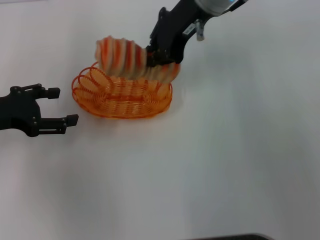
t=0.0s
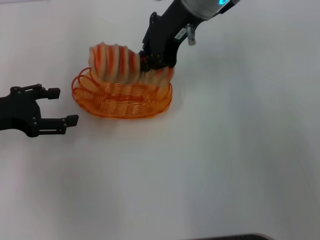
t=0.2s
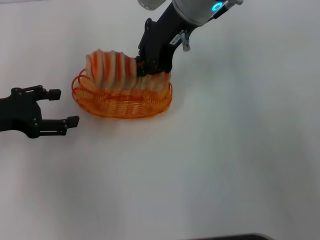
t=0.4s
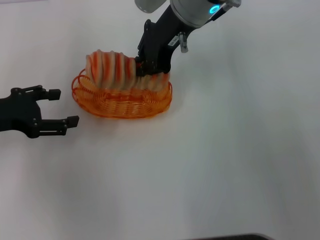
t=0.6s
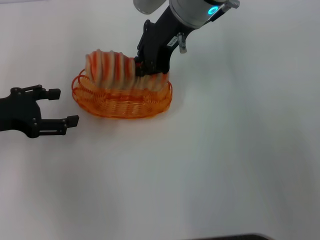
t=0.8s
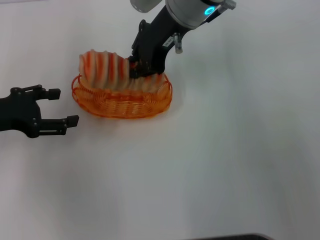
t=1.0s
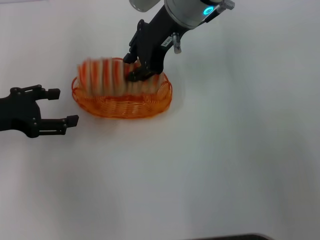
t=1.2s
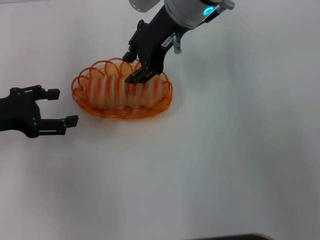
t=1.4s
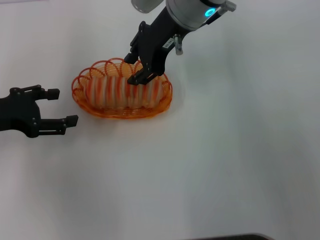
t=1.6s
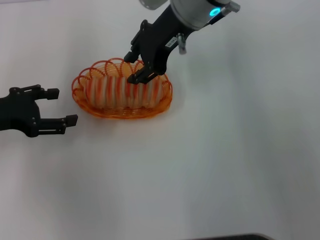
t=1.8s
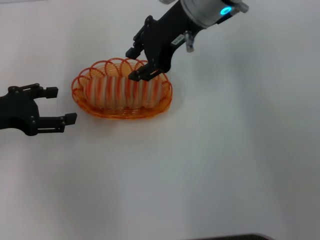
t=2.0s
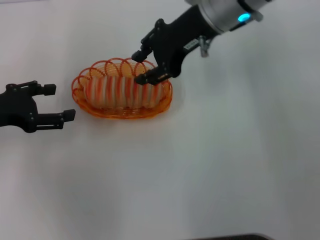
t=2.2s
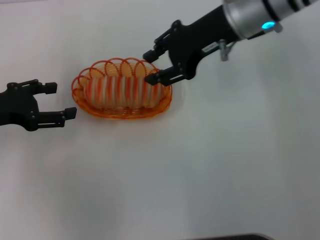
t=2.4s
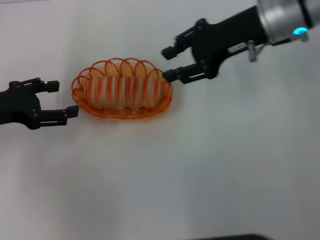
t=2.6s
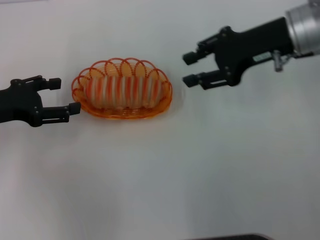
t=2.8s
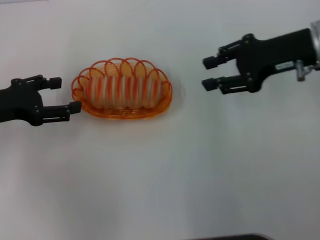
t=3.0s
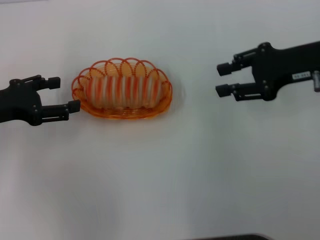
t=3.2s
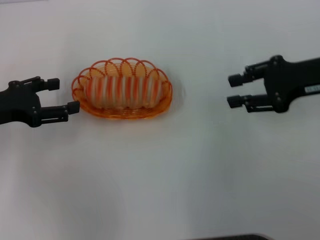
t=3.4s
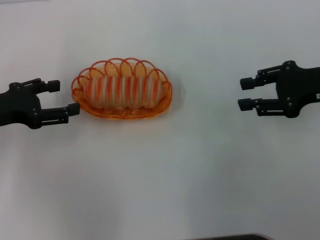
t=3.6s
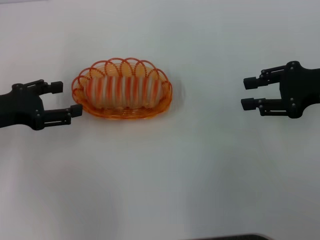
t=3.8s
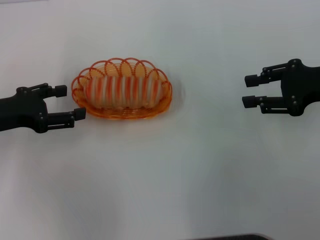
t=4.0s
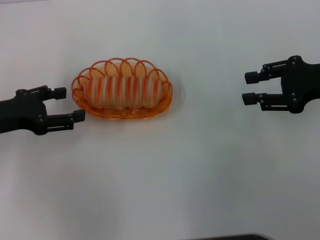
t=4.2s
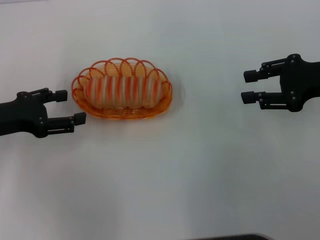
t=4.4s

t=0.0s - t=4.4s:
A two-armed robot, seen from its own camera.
t=0.0s - t=1.4s: The right gripper opens its fingers.
t=1.4s - t=3.0s: The right gripper heads to the right, covering roughly 20 cm.
t=3.0s - t=4.4s: The right gripper heads to the right, covering roughly 5 cm.

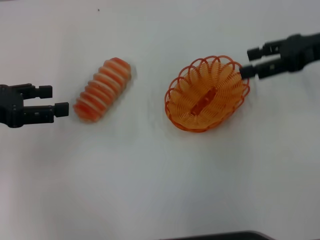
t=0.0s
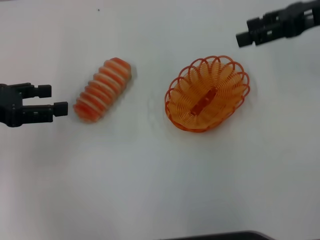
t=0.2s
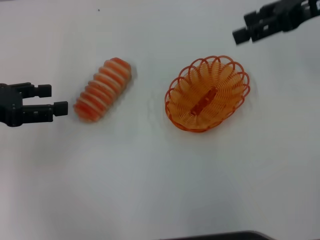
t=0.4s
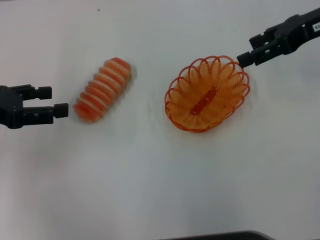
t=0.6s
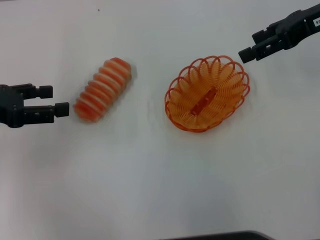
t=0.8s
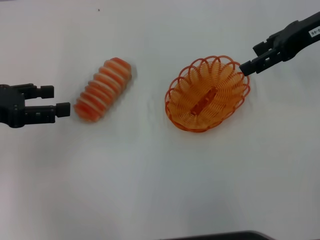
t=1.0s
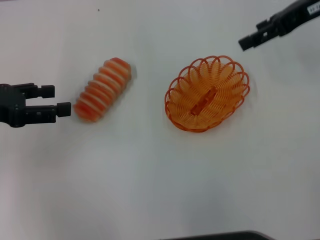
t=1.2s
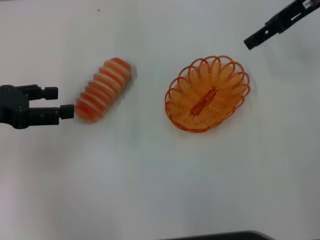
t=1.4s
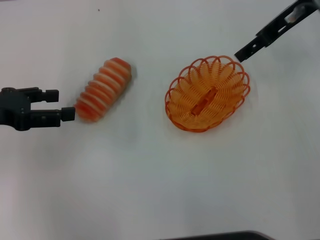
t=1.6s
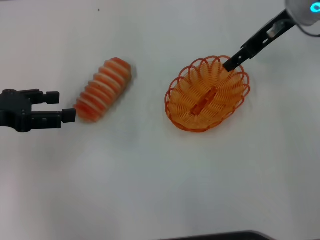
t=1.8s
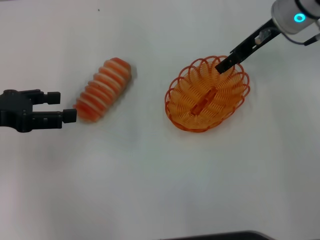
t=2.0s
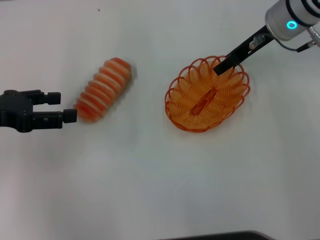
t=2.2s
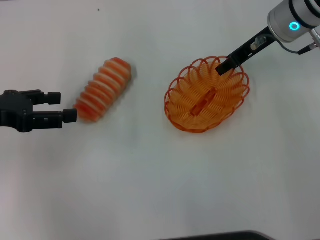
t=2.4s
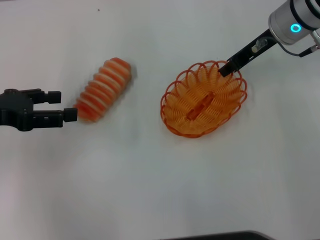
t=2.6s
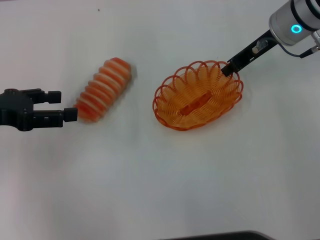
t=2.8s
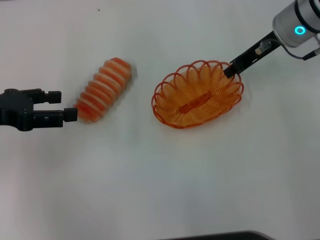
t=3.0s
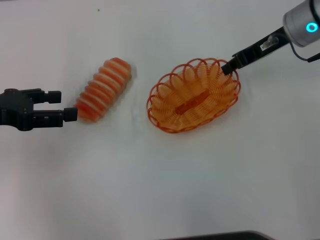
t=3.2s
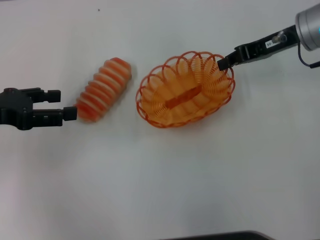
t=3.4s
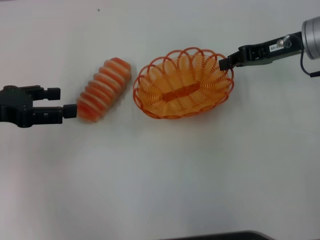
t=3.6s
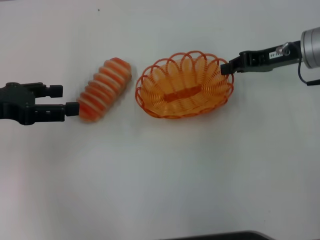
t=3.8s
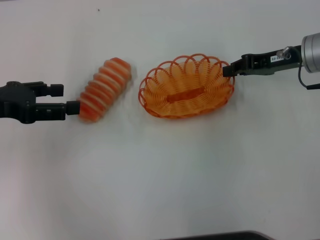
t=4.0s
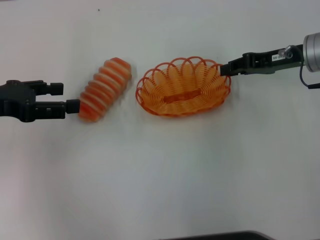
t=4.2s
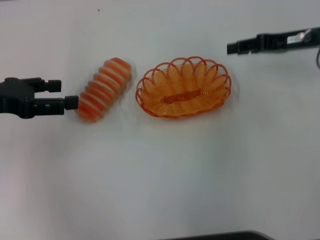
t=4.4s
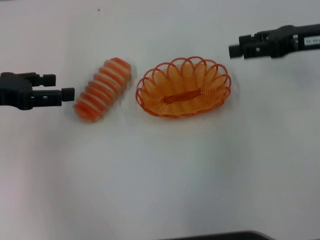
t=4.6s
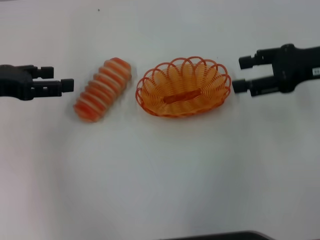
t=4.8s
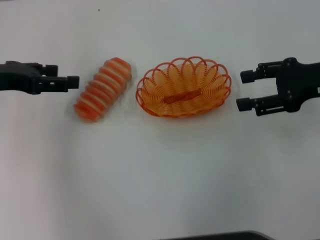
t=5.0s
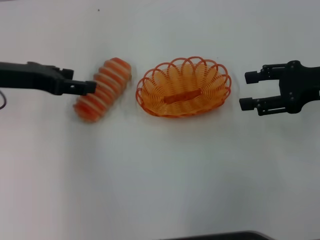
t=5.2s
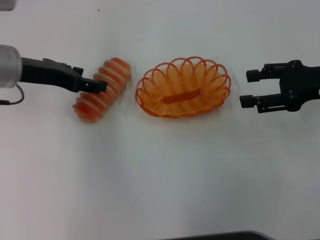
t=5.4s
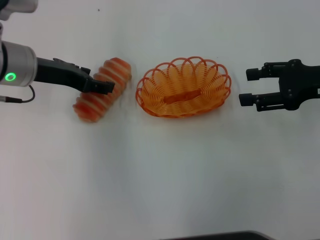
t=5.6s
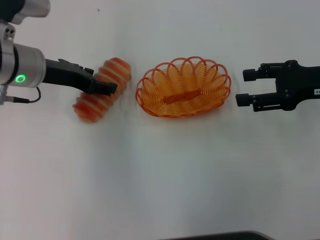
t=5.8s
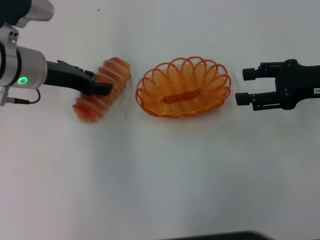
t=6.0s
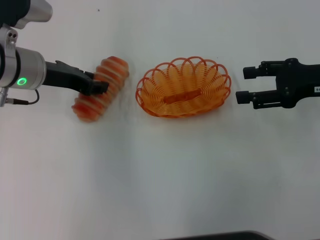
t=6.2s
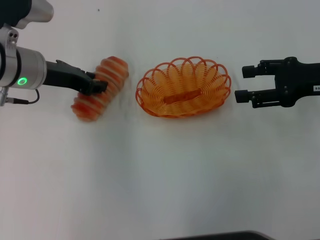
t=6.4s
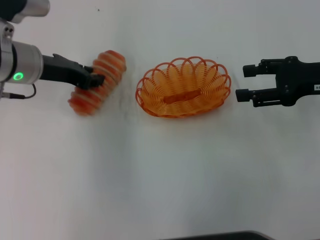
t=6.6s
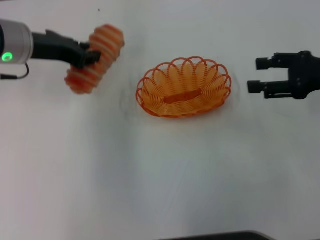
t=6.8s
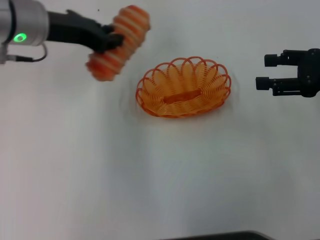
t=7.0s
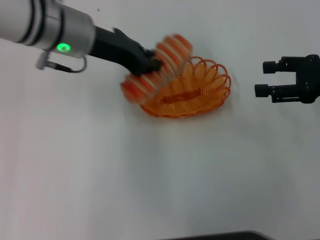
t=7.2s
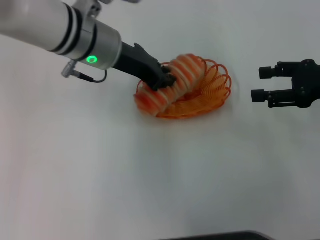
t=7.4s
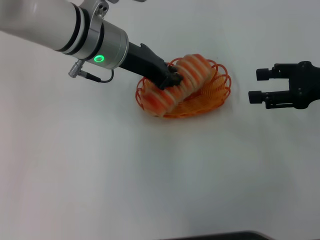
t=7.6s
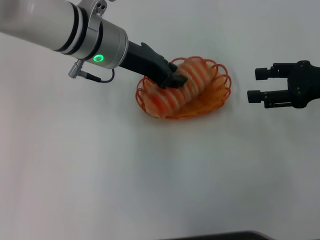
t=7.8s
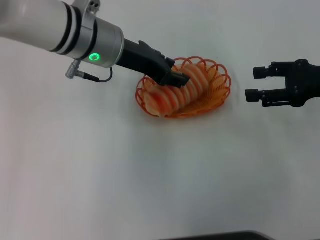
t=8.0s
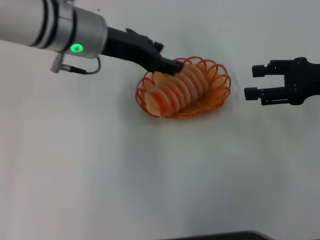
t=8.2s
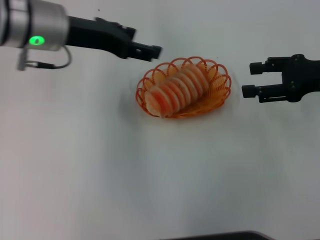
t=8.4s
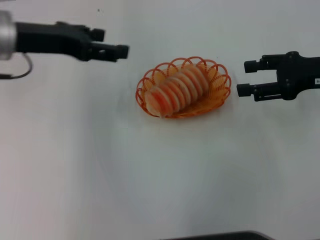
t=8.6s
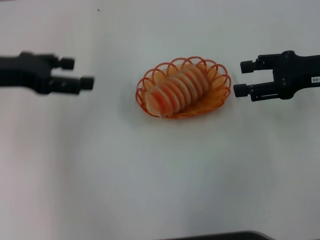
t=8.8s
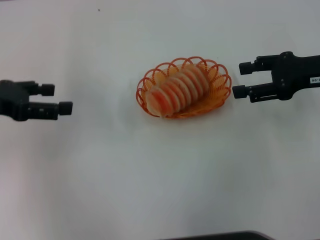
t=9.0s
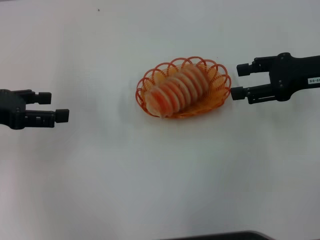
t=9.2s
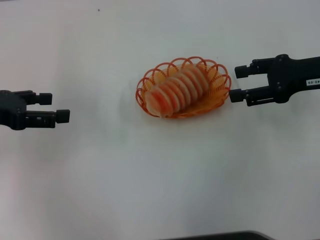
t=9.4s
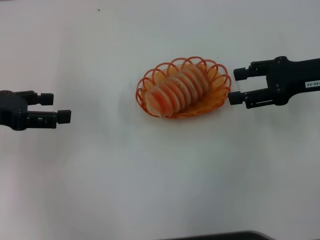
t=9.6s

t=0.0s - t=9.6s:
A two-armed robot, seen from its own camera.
Step, t=0.0s - t=3.4s: Pick up the basket with the right gripper.
Step, t=3.6s - t=4.2s: Place the basket in the center of view with the right gripper.
Step, t=4.4s - t=6.8s: Pick up the long bread with the left gripper.
Step, t=7.0s - t=8.4s: Place the long bread into the basket with the left gripper.
t=0.0s - t=1.6s: The right gripper moves to the left and forward, approximately 10 cm.
t=1.6s - t=3.2s: The right gripper moves downward, some 5 cm, and closes.
t=3.2s - t=4.8s: The right gripper is displaced backward and to the right by approximately 10 cm, and opens its fingers.
t=4.8s - t=6.4s: The left gripper goes roughly 10 cm to the right and forward, and closes up.
t=6.4s - t=8.0s: The left gripper travels to the right by roughly 10 cm.
t=8.0s - t=9.6s: The left gripper heads to the left, covering about 20 cm, and opens.

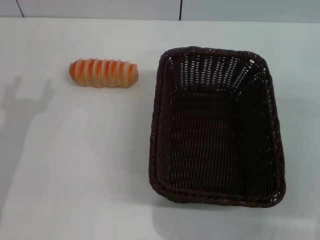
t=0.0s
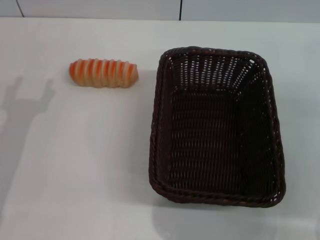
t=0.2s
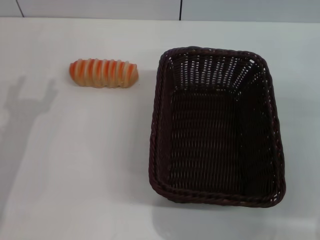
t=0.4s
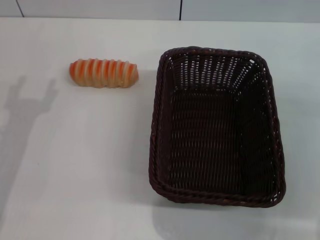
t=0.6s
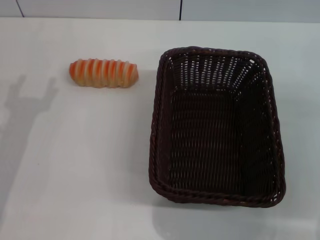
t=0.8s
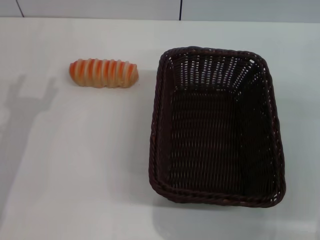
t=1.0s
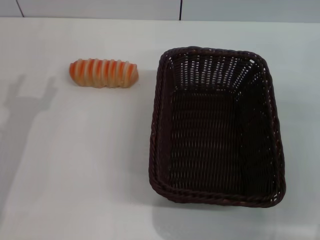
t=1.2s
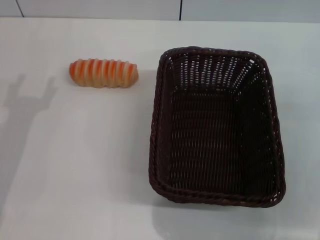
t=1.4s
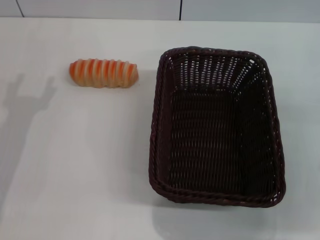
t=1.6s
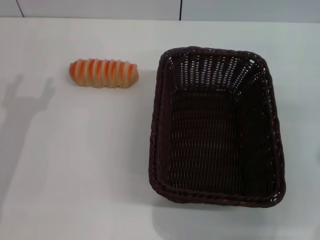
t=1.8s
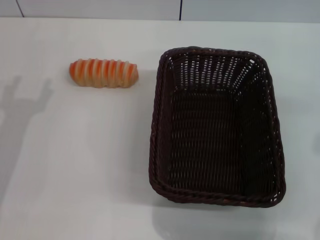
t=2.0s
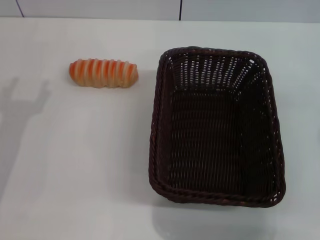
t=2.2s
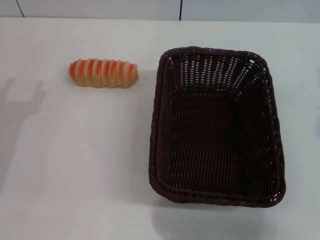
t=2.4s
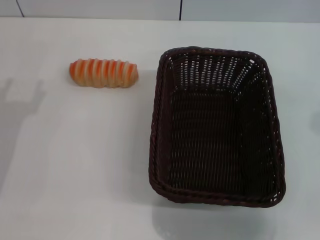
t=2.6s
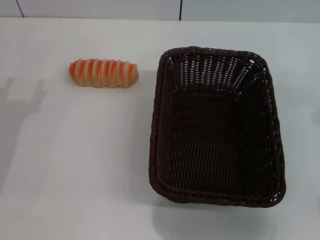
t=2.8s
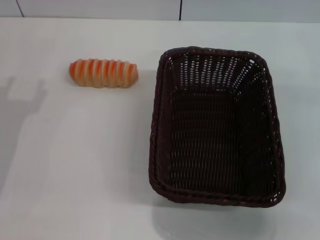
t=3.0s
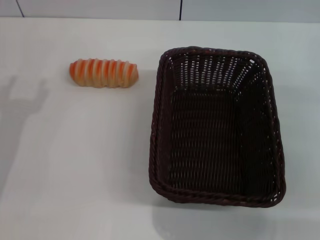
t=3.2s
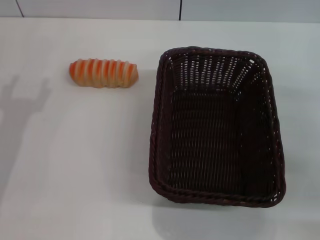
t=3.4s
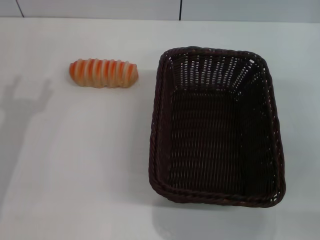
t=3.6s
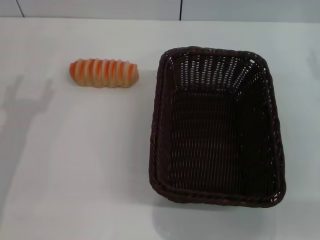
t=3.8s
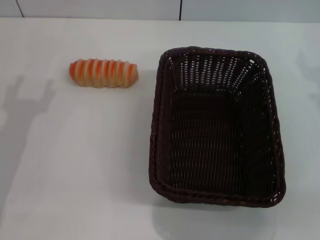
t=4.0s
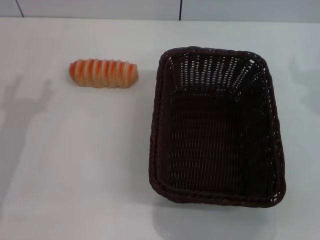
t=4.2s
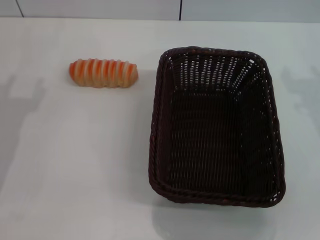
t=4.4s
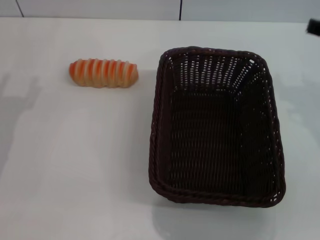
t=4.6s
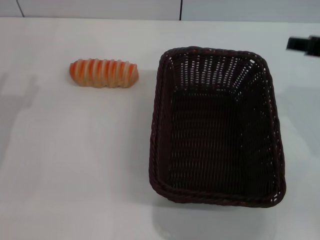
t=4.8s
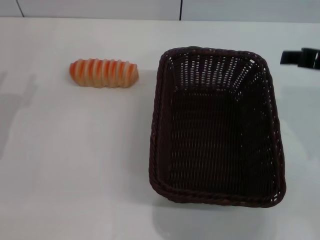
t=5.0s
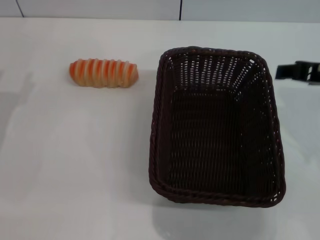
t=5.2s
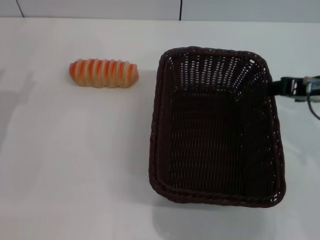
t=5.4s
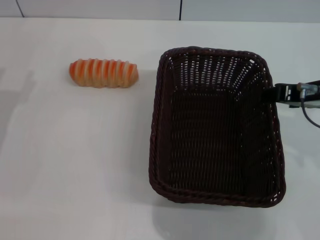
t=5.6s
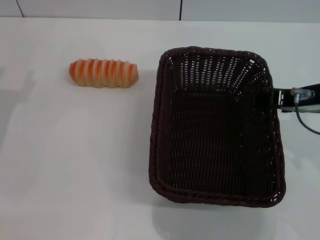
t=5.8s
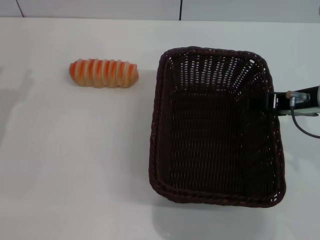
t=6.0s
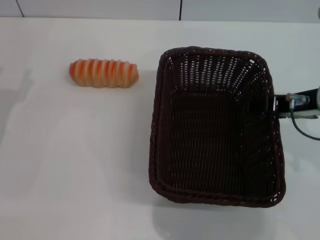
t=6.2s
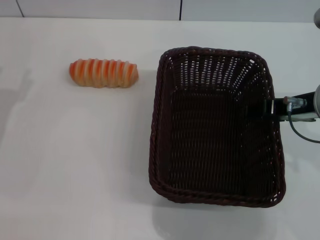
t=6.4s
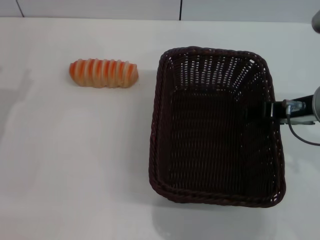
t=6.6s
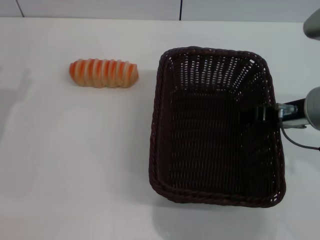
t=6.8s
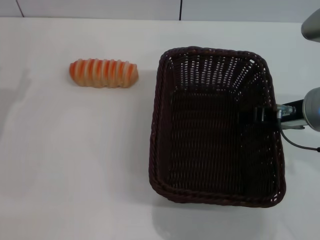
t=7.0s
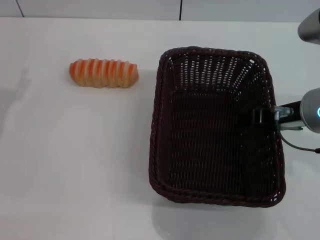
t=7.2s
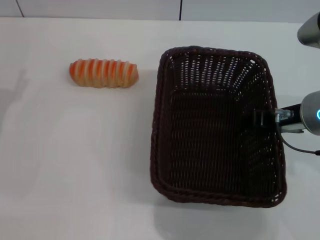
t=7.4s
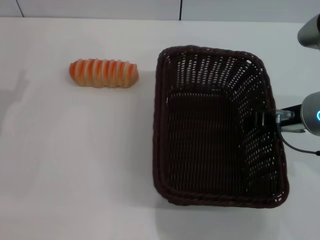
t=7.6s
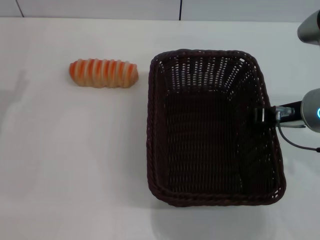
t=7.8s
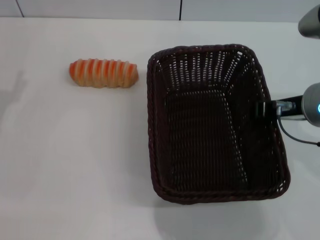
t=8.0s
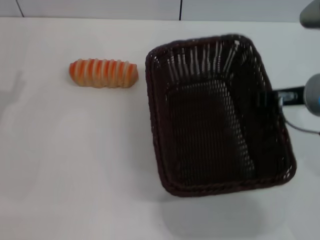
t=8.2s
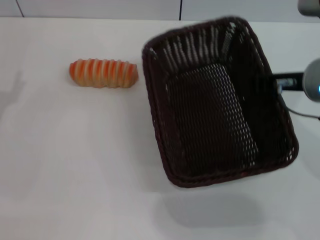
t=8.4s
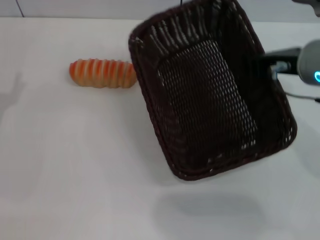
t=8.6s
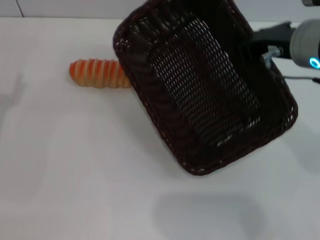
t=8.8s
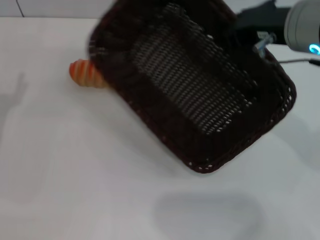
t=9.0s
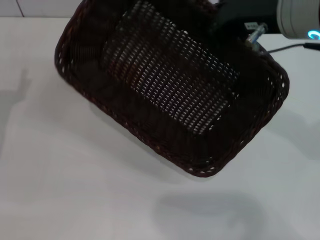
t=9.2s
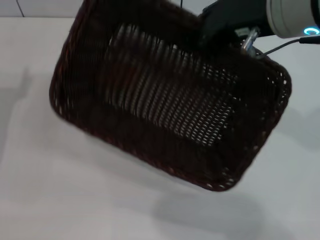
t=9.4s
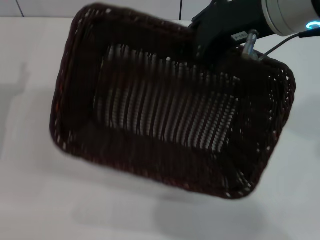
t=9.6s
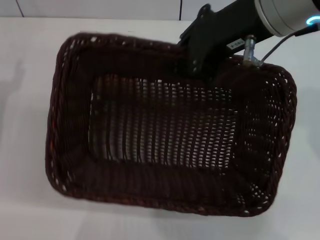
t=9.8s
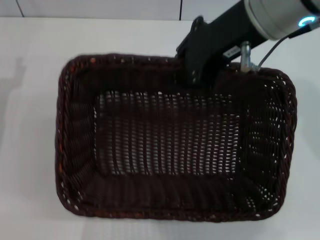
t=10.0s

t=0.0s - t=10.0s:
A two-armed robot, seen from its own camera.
Step, t=0.0s - t=8.2s: Pick up the dark basket with the right gripper.
t=4.2s - t=5.8s: The right gripper goes roughly 5 cm to the left.
t=5.8s - t=7.2s: There are only small adjustments of the grippers.
t=7.2s - t=8.6s: The right gripper closes.
t=8.6s - t=10.0s: The right gripper moves upward and to the left, roughly 10 cm.
